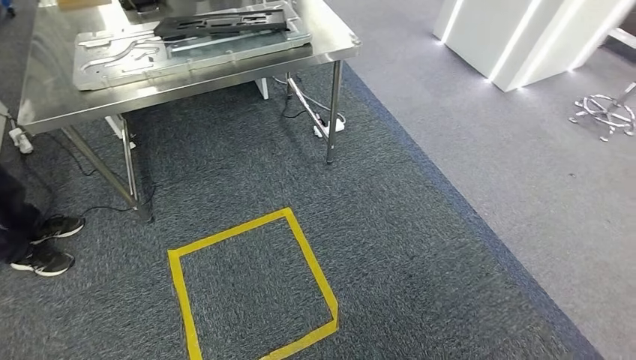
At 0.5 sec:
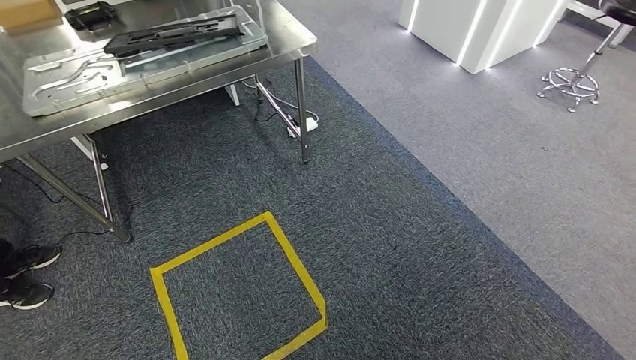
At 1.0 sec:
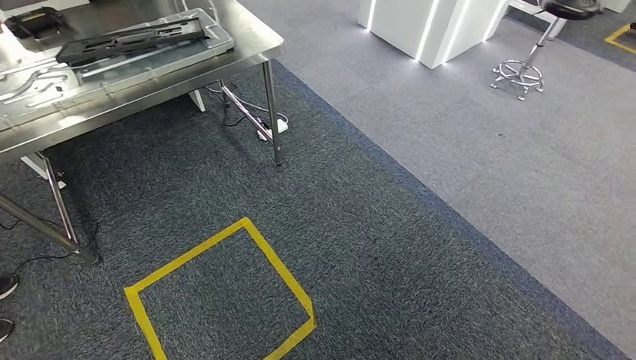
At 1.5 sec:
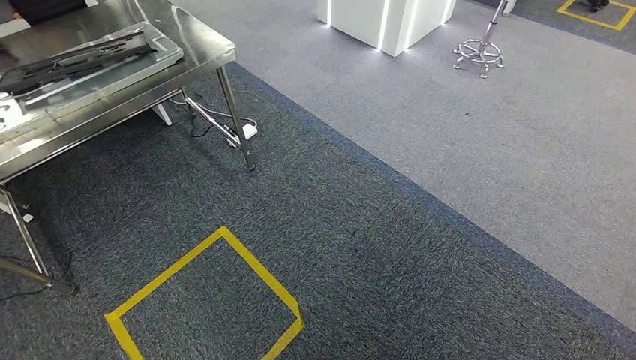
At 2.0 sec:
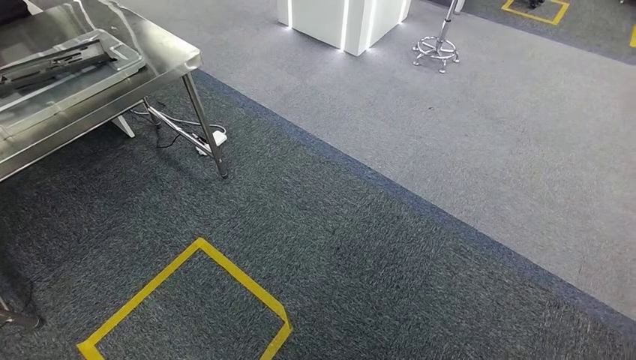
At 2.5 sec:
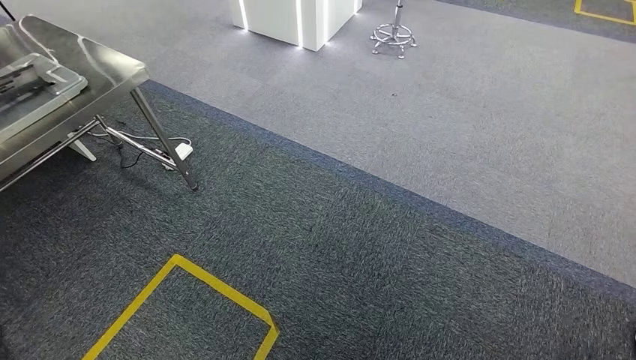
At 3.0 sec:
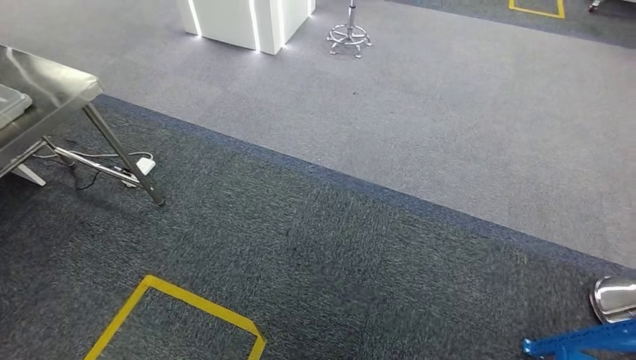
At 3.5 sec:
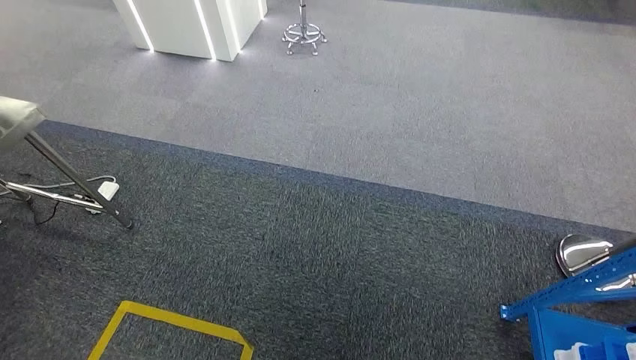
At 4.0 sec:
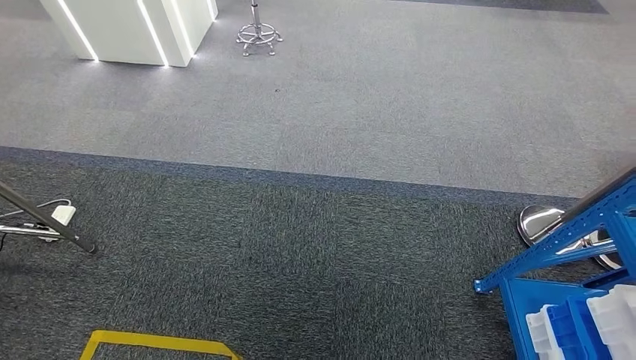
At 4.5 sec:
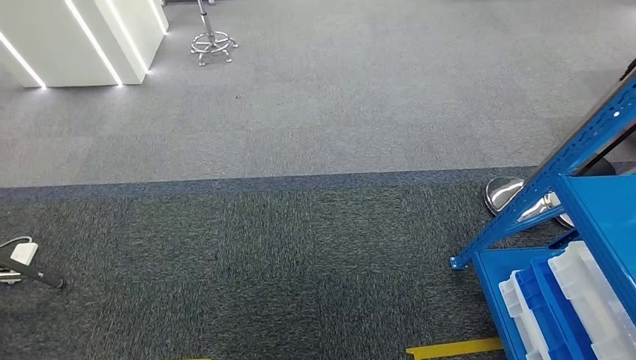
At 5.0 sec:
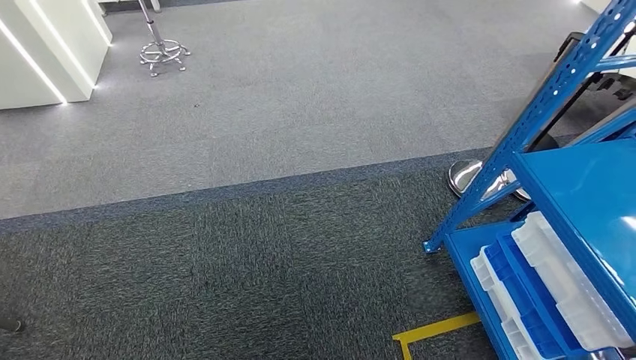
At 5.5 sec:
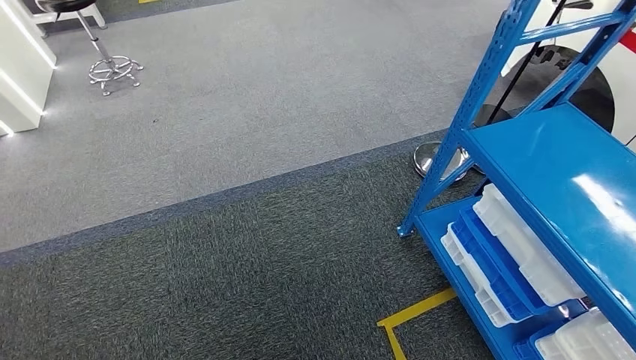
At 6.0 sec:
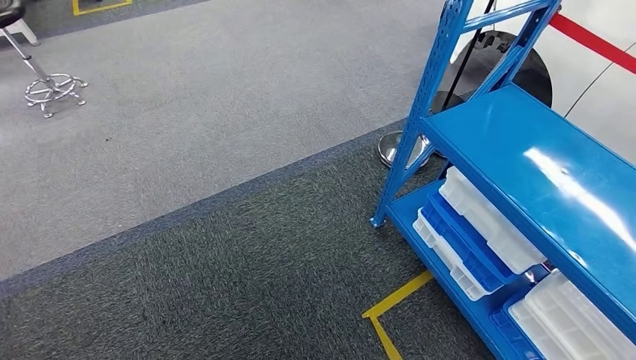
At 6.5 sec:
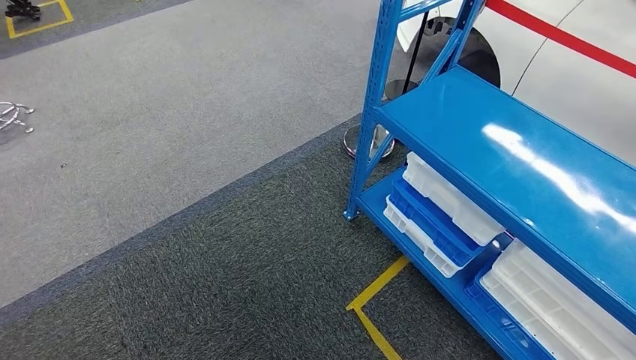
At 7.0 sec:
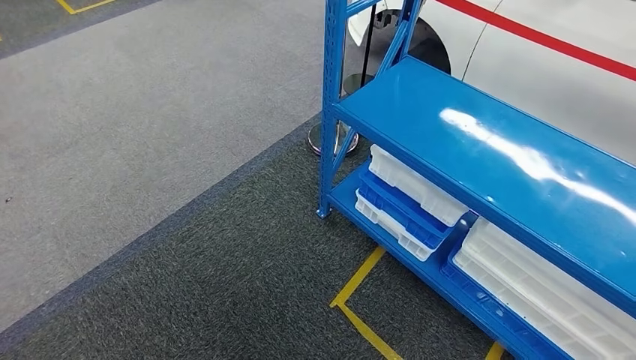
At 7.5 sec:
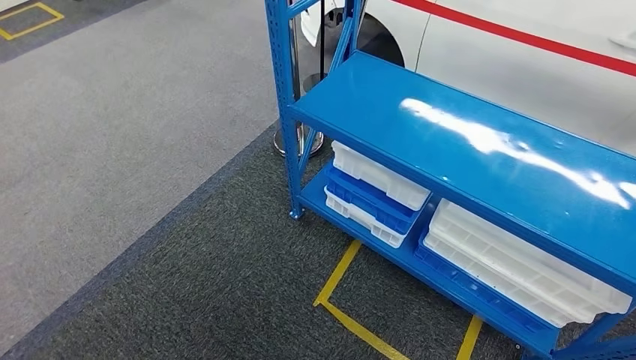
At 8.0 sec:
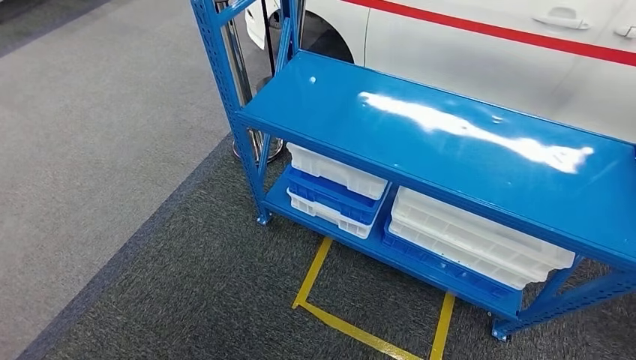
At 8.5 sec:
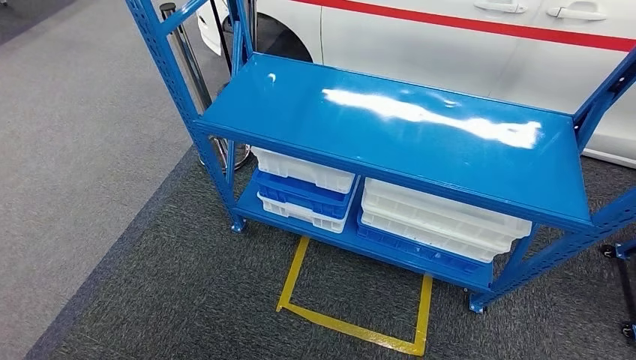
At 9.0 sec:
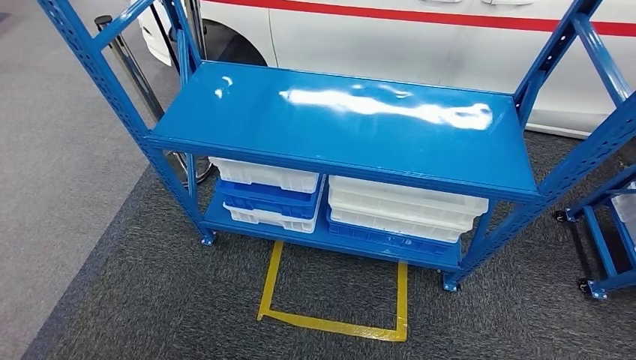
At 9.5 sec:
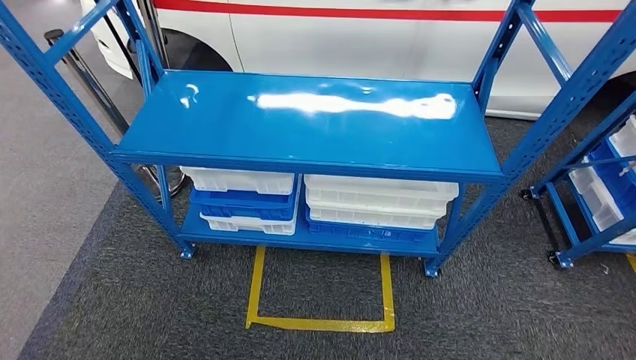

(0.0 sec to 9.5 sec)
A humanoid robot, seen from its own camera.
Step, 0.0 sec - 9.5 sec: Return to the initial position at the shelf.
